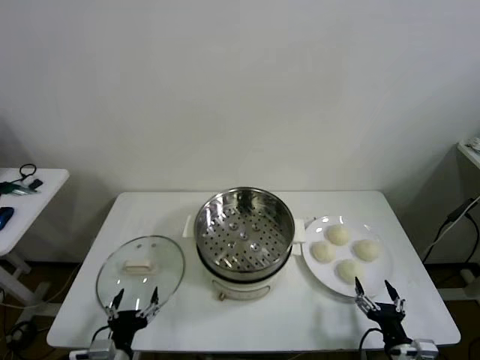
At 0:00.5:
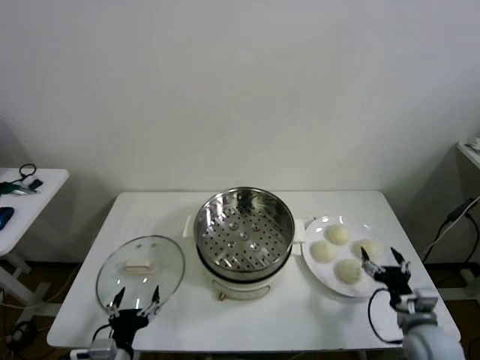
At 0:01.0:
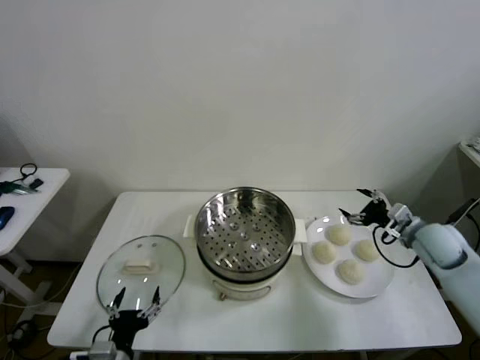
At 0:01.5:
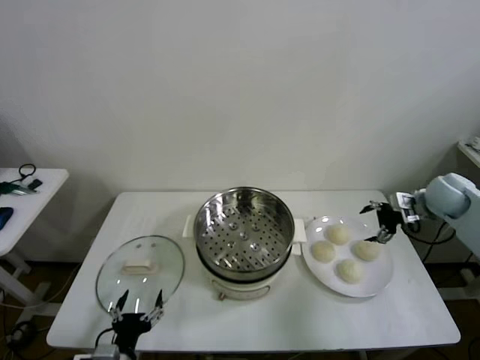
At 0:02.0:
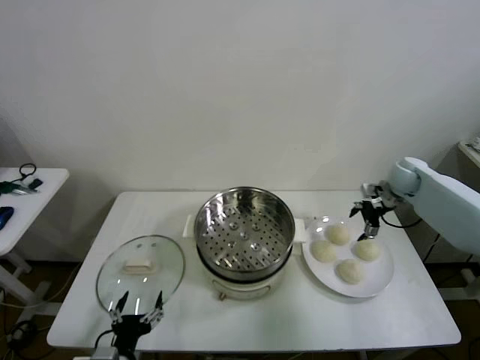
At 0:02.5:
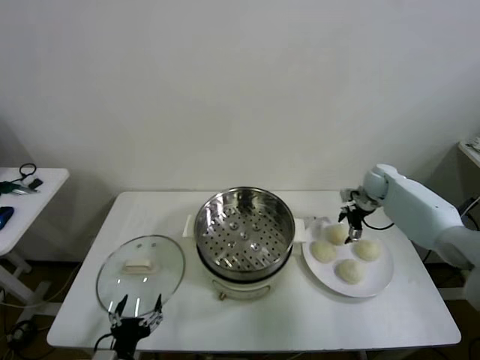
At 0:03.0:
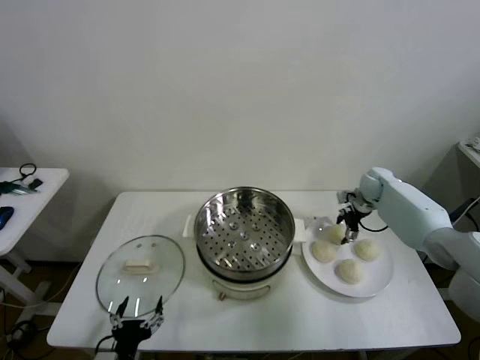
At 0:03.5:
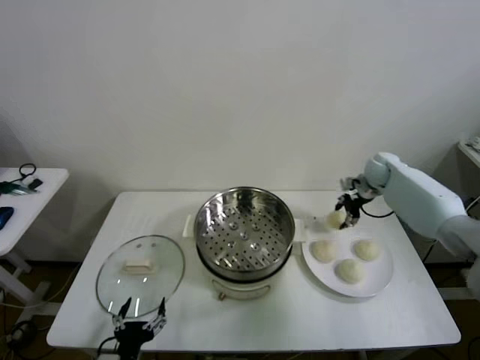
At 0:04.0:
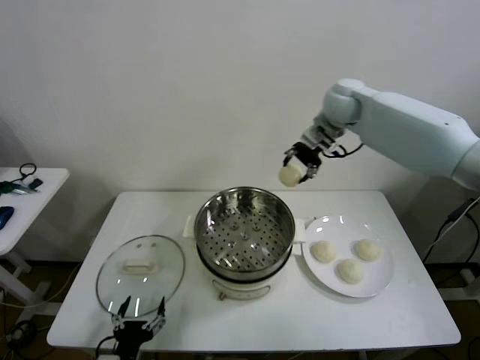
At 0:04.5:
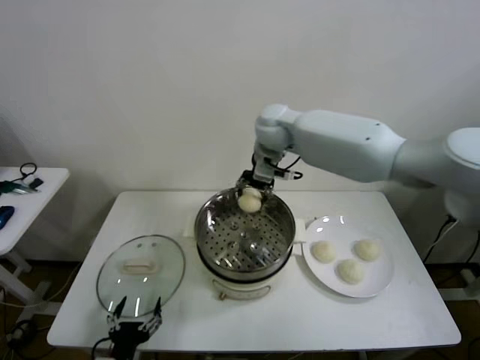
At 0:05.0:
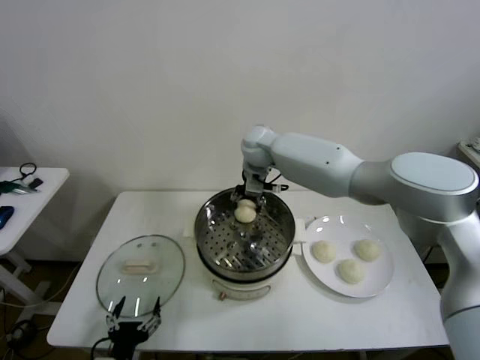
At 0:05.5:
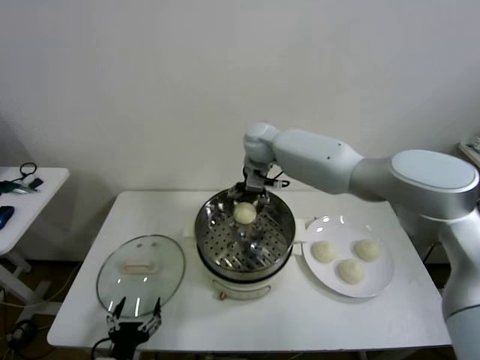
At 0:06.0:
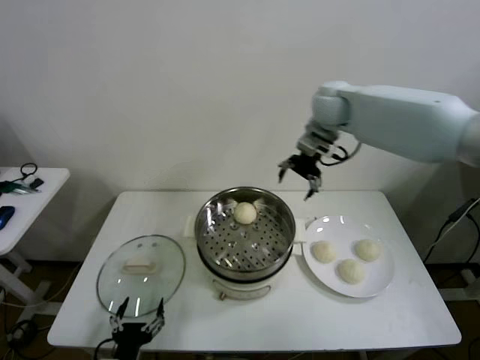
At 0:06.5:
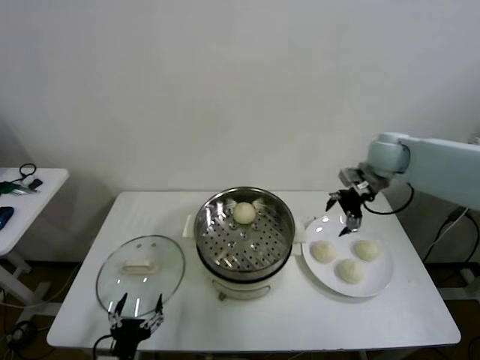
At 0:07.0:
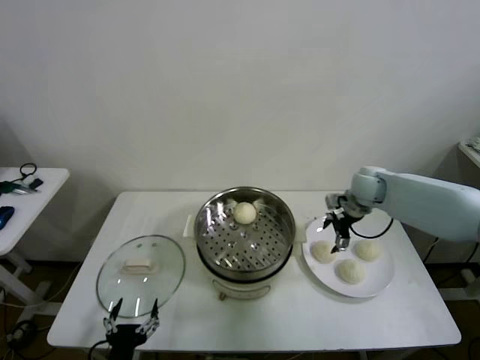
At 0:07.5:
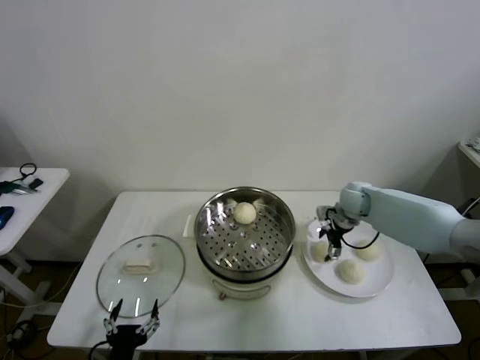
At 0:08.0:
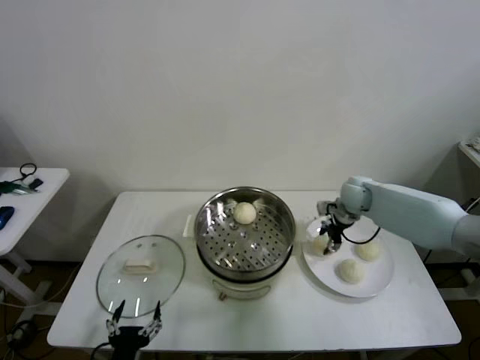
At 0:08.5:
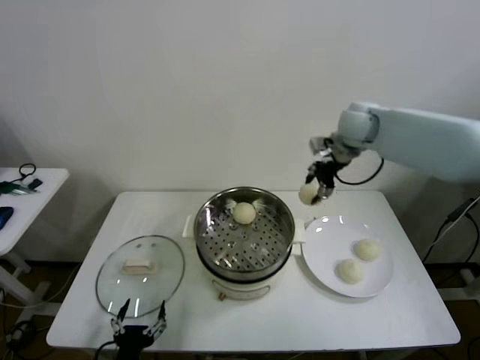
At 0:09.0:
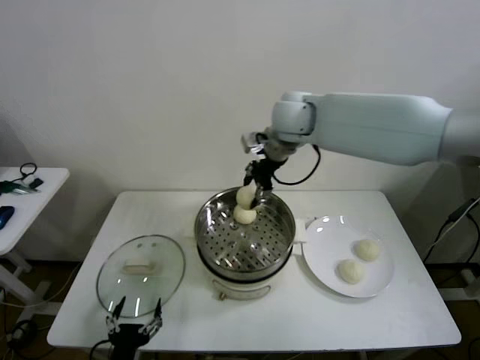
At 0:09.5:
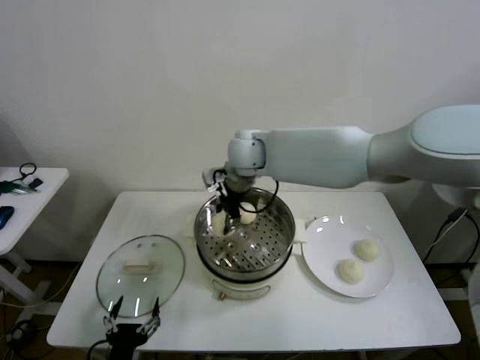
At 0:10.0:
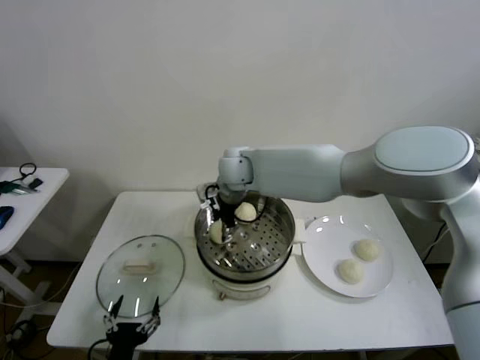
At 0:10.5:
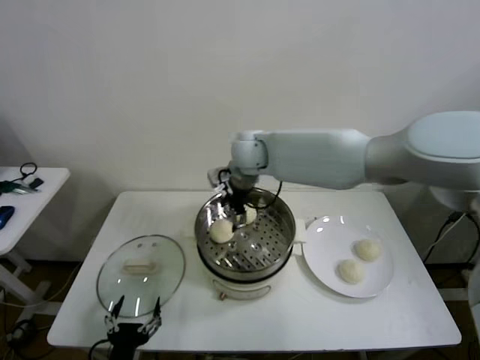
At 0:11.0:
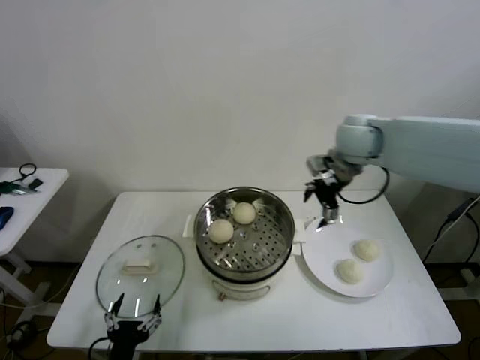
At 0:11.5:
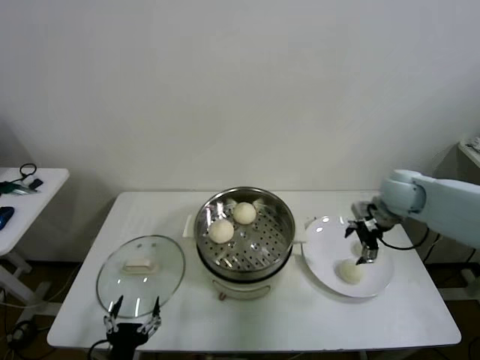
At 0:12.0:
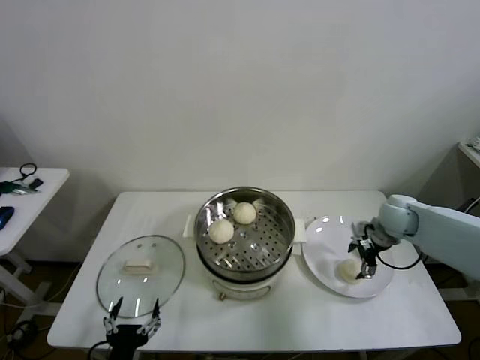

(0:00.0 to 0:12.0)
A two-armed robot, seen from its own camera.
Task of the whole recording: take steamed baozi put them in steamer then cover it.
Step, 0:00.0 - 0:03.0: Grasp the baozi in the plate with right gripper.
Step, 0:03.5 - 0:05.5: Place the baozi on the steamer with right gripper.
Step, 0:06.0 - 0:07.5: Grasp the baozi in the plate with right gripper.
Step, 0:08.0 - 0:10.0: Place the baozi on the steamer with right gripper.
0:02.0 - 0:04.0: The right gripper moves to the left and upward, roughly 30 cm, and closes.
0:04.0 - 0:06.0: The right gripper moves about 20 cm to the left and comes back, and opens.
0:06.0 - 0:08.0: The right gripper goes roughly 25 cm downward and to the right, and closes its fingers.
0:08.0 - 0:10.0: The right gripper heads to the left, covering about 30 cm.
0:10.0 - 0:12.0: The right gripper moves to the right, roughly 40 cm, and opens.

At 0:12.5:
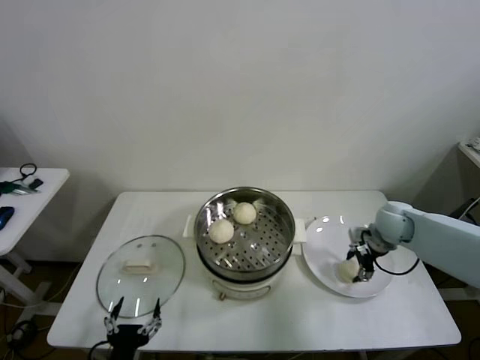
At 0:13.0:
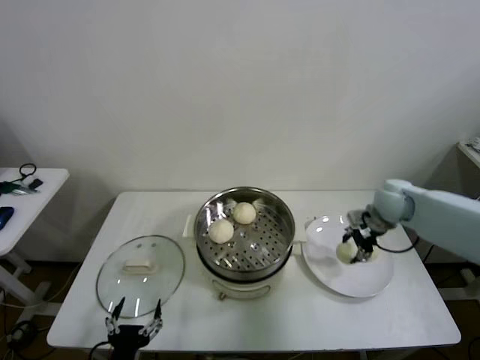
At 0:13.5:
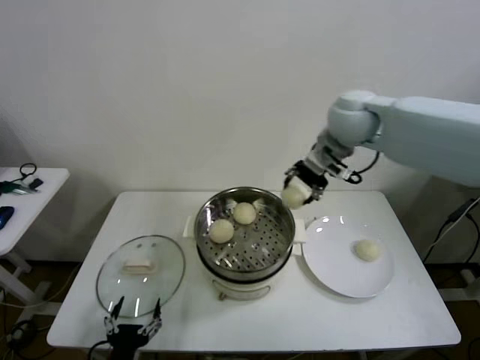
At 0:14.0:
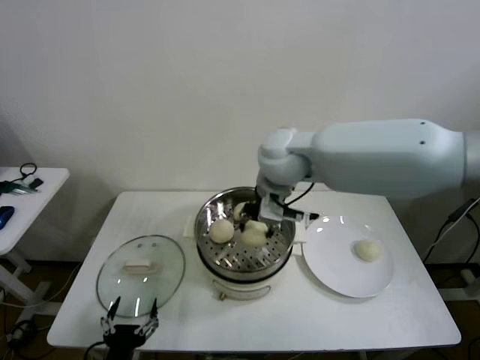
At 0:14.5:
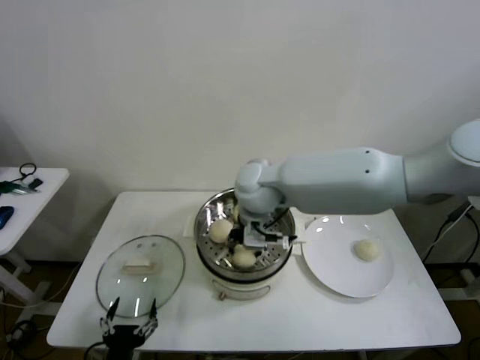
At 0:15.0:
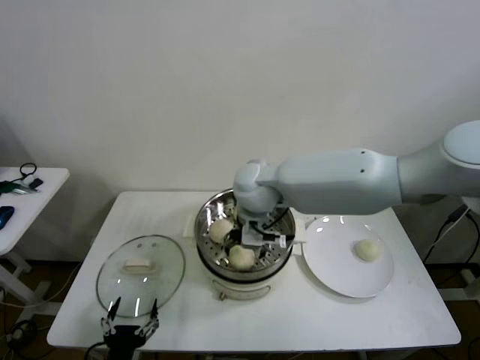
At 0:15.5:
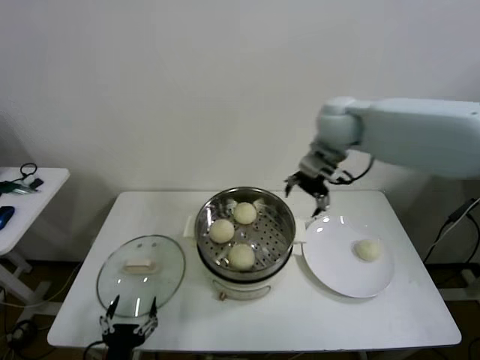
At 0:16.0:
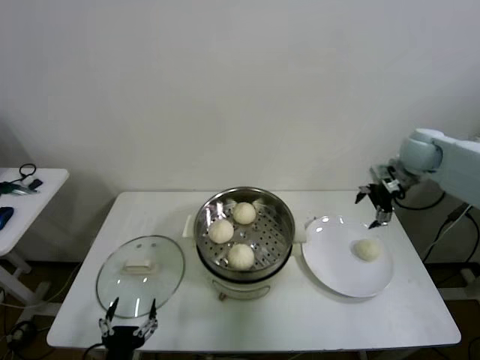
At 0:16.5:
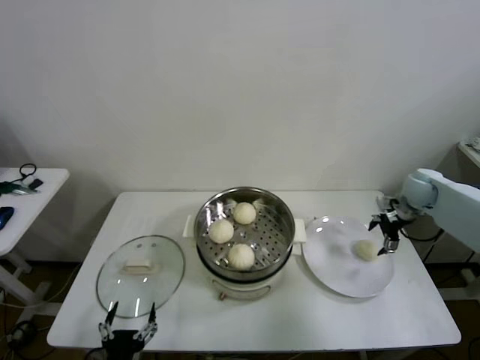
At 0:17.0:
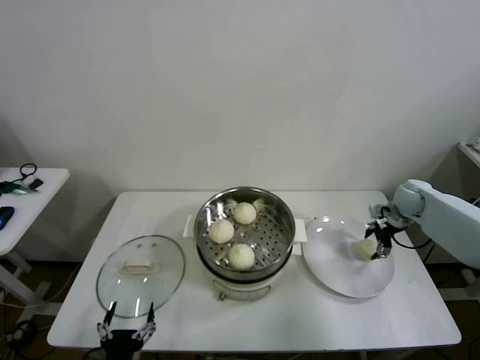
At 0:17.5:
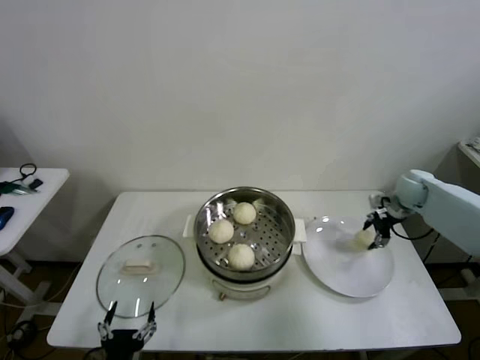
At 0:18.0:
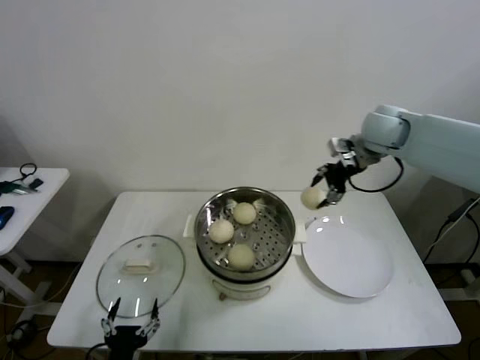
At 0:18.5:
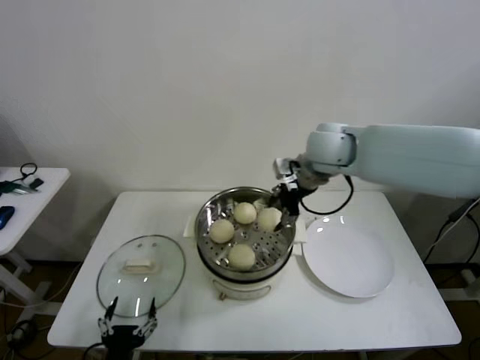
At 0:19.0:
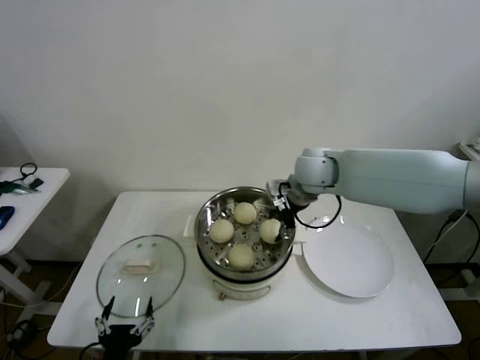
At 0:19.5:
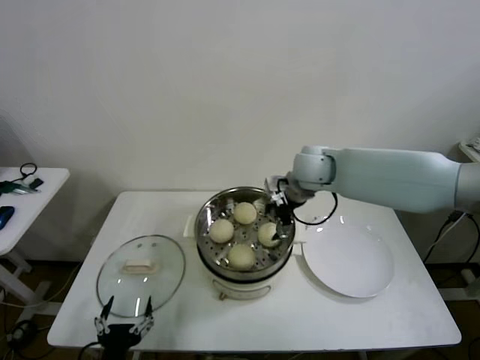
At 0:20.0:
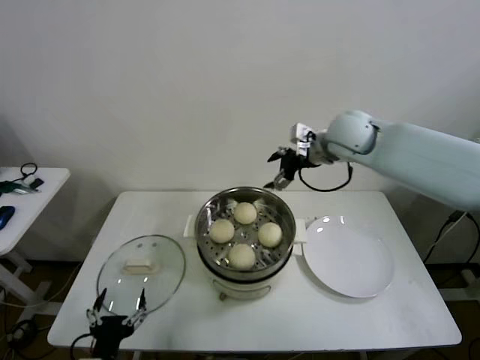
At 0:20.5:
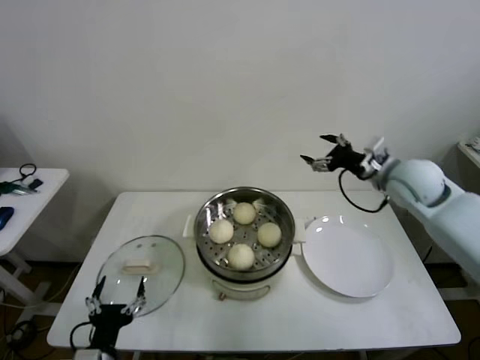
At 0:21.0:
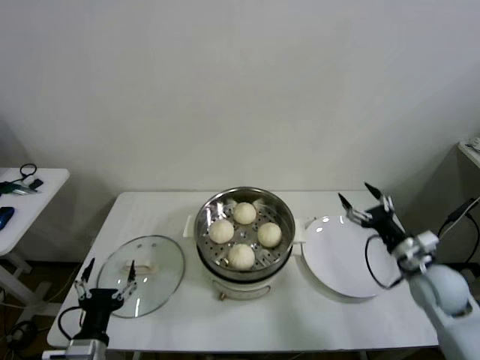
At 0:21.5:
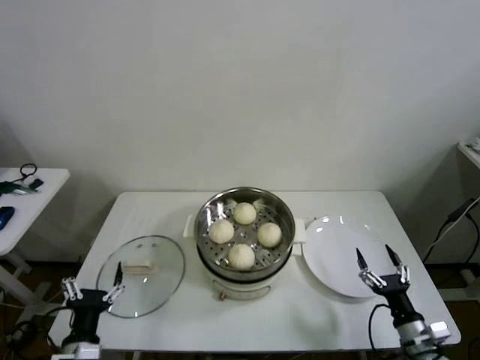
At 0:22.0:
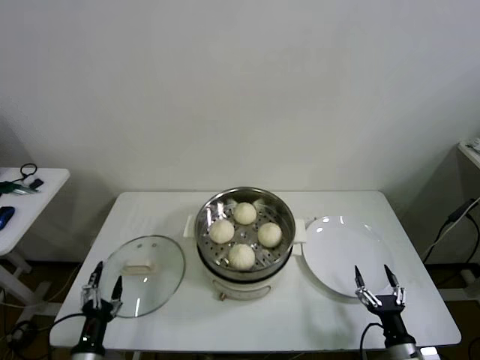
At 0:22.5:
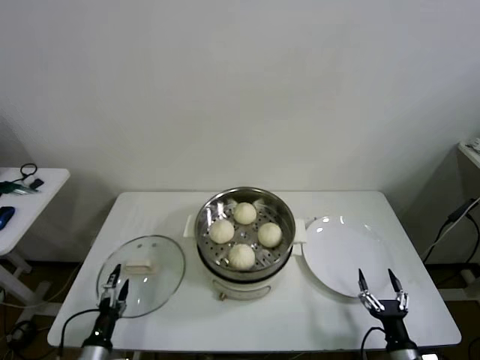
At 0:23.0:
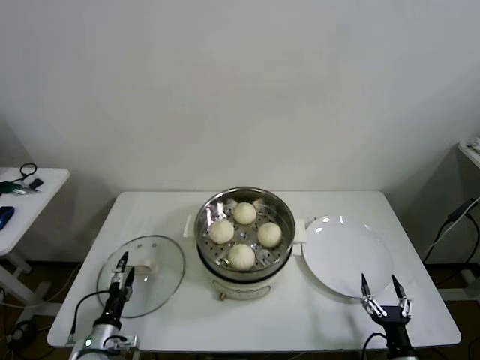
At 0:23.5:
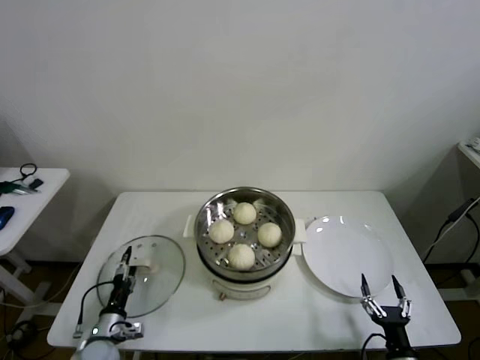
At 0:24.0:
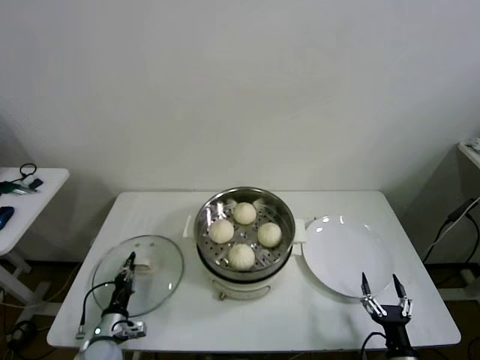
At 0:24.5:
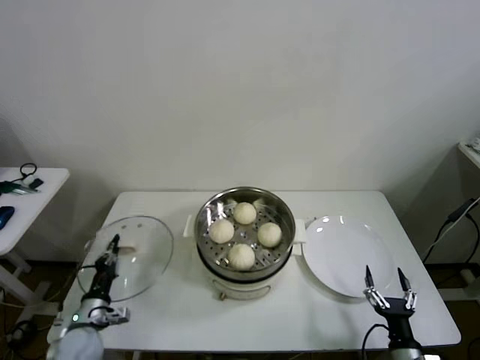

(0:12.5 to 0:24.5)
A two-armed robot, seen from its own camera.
Task of the whole recording: take steamed baozi put them in steamer then cover it.
Step, 0:13.0 - 0:14.5: Place the baozi on the steamer with right gripper.
Step, 0:15.5 - 0:17.0: Grasp the baozi in the plate with right gripper.
Step, 0:17.5 - 0:19.0: Place the baozi on the steamer with right gripper.
Step, 0:20.0 - 0:24.0: Grasp the pot lid with left gripper.
0:12.5 - 0:14.5: The right gripper travels to the left and upward by approximately 40 cm, and closes its fingers.
0:14.5 - 0:16.5: The right gripper shifts approximately 40 cm to the right, and opens its fingers.
0:16.5 - 0:18.5: The right gripper is displaced to the left and upward by about 30 cm, and closes up.
0:18.5 - 0:20.5: The right gripper travels to the right by about 15 cm, and opens its fingers.
0:20.5 - 0:22.5: The left gripper goes approximately 15 cm downward and to the left; the right gripper travels downward and backward by about 50 cm.
0:22.5 - 0:24.5: The left gripper shifts some 10 cm forward, and closes its fingers.

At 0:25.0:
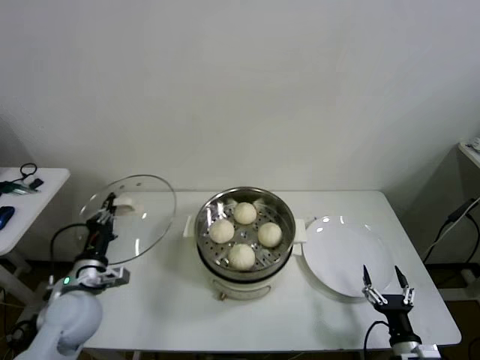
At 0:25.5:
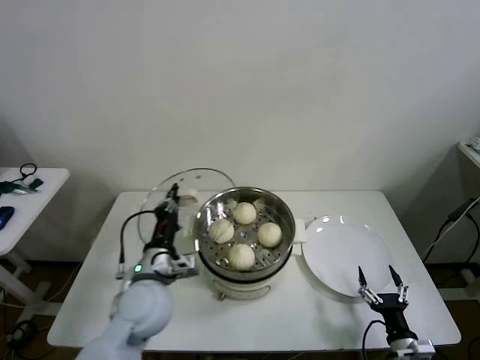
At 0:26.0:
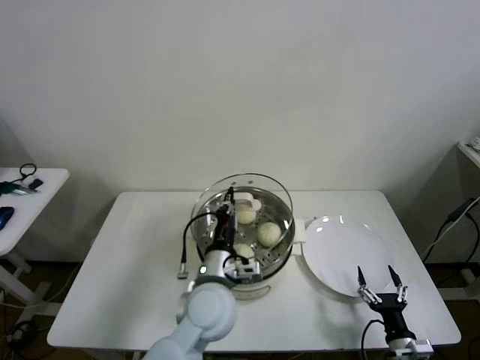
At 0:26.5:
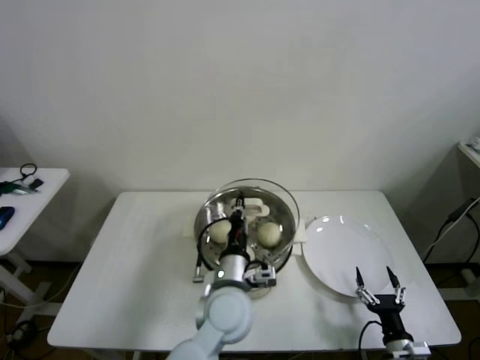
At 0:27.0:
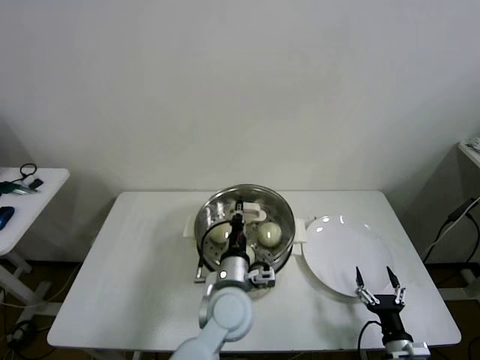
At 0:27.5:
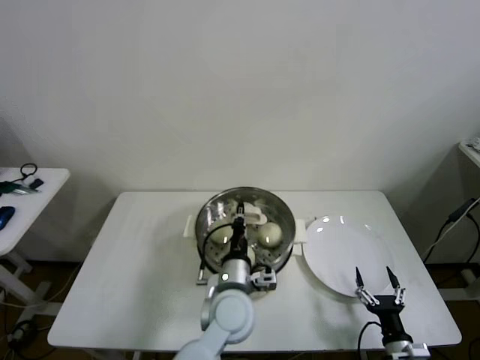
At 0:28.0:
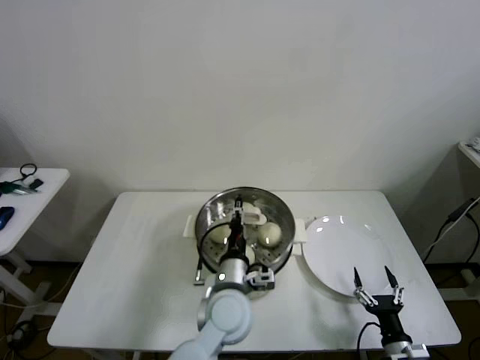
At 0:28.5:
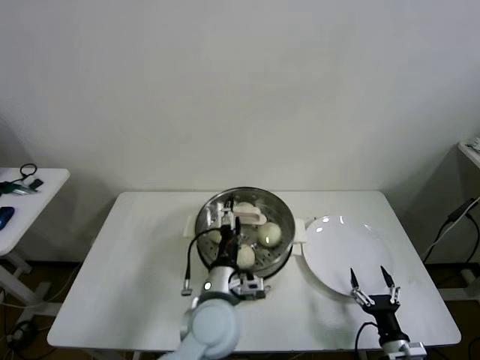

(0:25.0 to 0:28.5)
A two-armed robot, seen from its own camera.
Task of the whole recording: take steamed baozi put them in steamer then cover it.
Step, 0:25.0 - 0:28.5: Place the pot lid on the steamer with left gripper.
0:25.0 - 0:27.0: The left gripper goes approximately 30 cm to the right.
0:27.0 - 0:28.5: The left gripper opens up.
